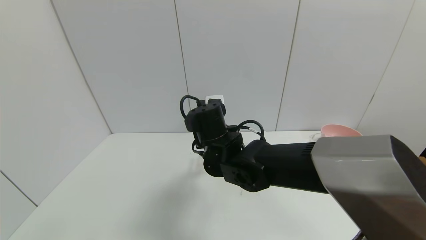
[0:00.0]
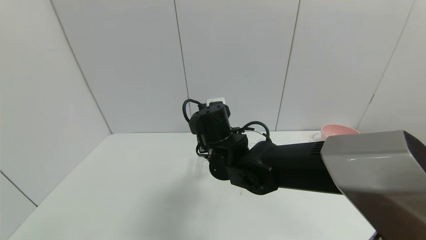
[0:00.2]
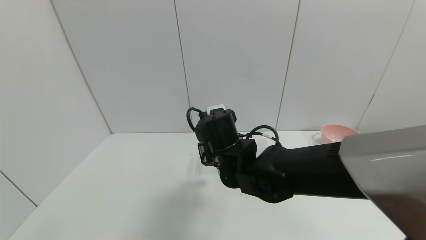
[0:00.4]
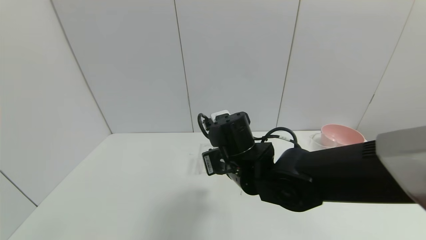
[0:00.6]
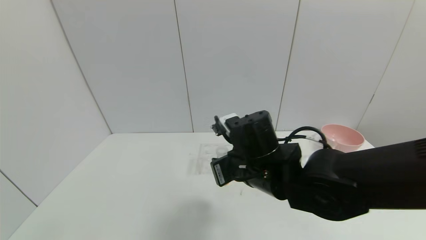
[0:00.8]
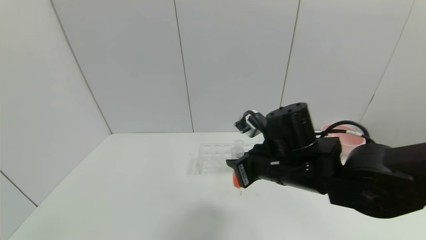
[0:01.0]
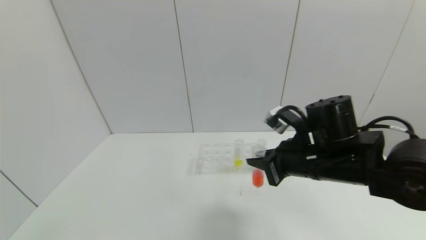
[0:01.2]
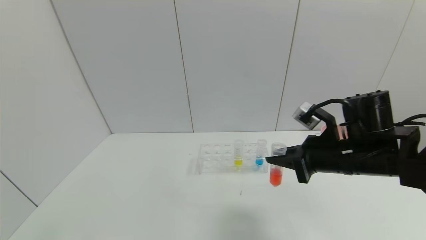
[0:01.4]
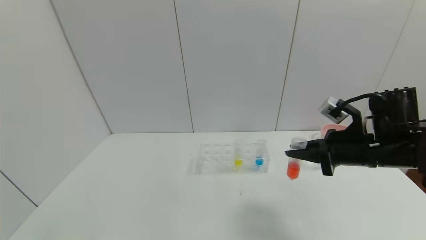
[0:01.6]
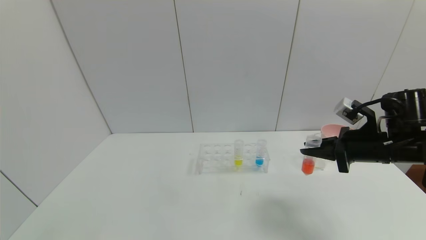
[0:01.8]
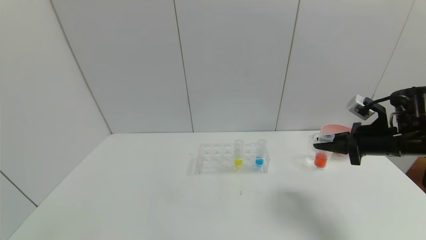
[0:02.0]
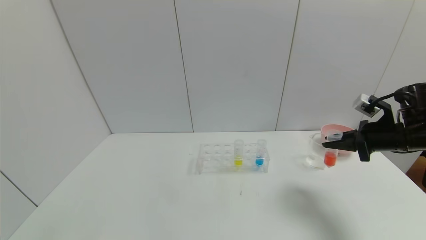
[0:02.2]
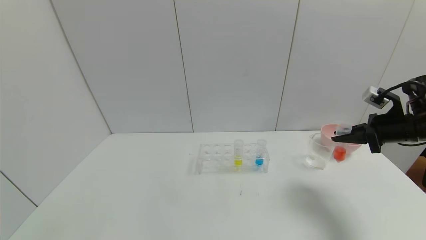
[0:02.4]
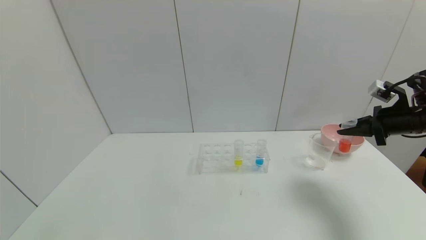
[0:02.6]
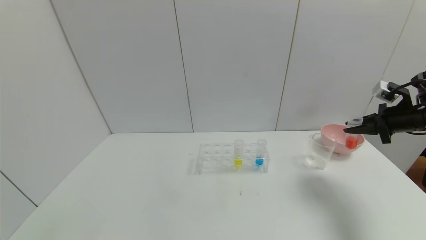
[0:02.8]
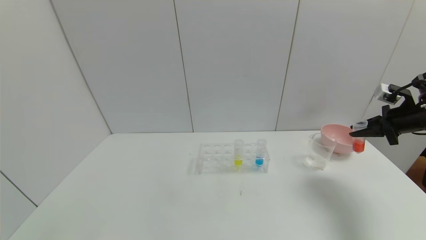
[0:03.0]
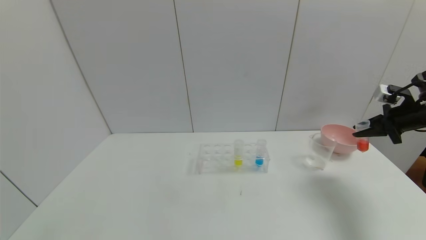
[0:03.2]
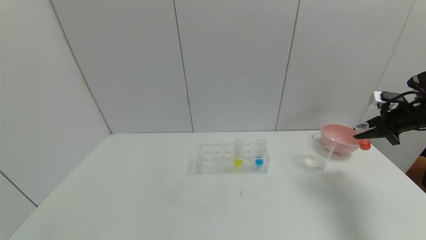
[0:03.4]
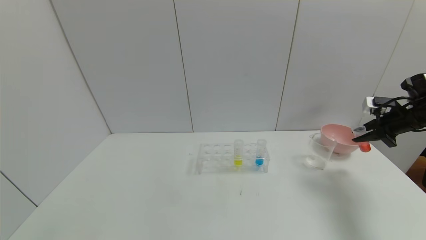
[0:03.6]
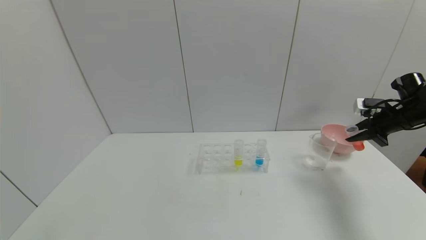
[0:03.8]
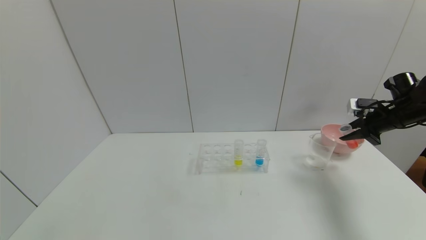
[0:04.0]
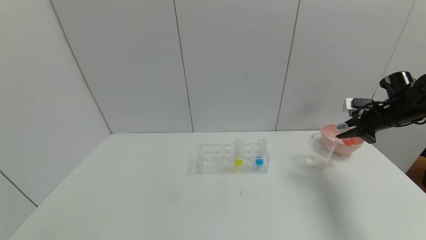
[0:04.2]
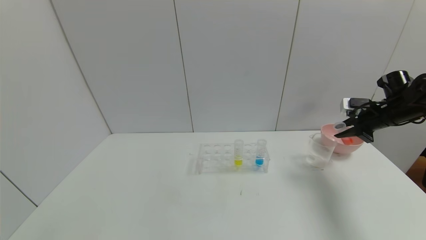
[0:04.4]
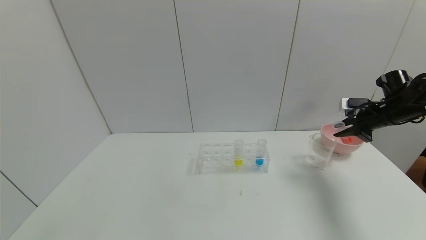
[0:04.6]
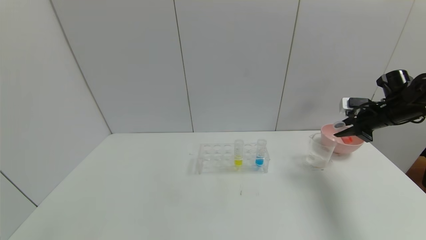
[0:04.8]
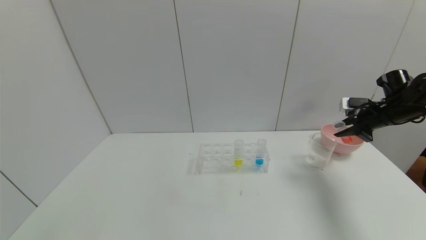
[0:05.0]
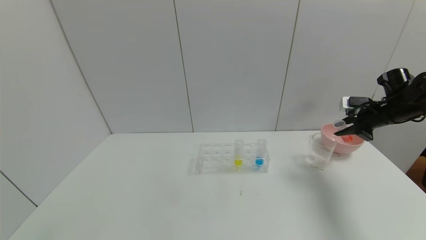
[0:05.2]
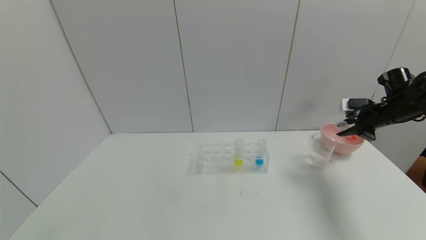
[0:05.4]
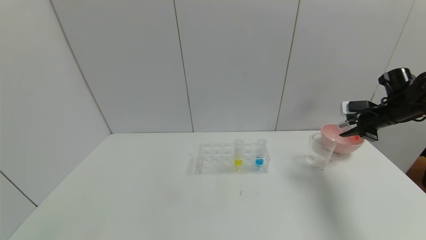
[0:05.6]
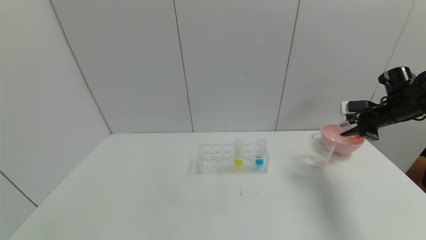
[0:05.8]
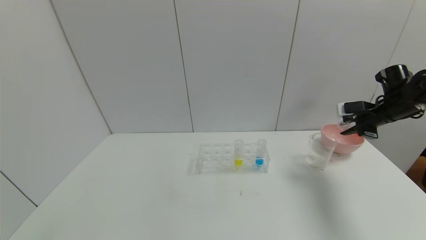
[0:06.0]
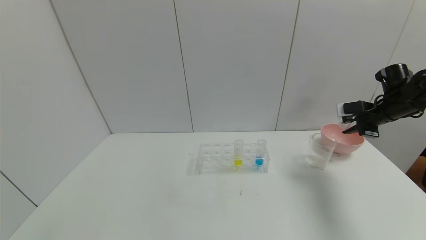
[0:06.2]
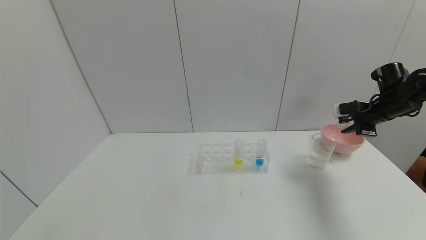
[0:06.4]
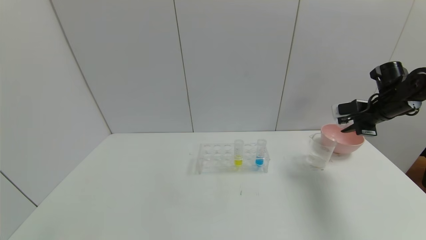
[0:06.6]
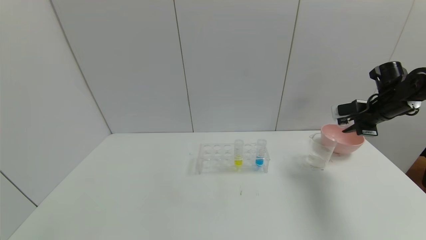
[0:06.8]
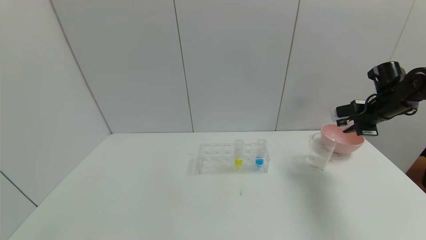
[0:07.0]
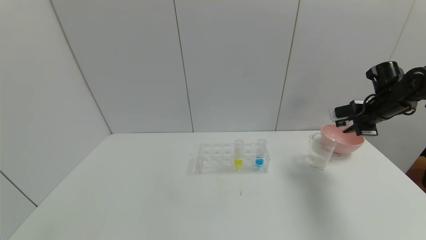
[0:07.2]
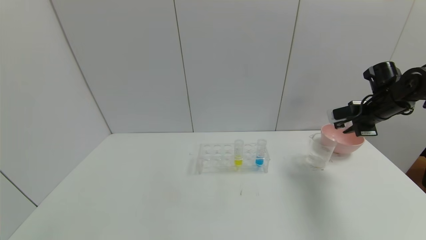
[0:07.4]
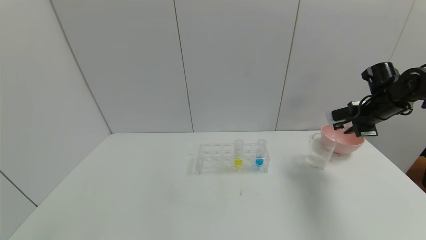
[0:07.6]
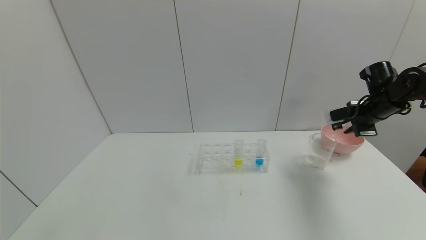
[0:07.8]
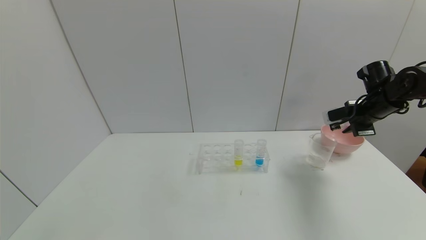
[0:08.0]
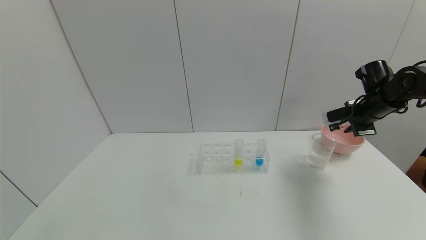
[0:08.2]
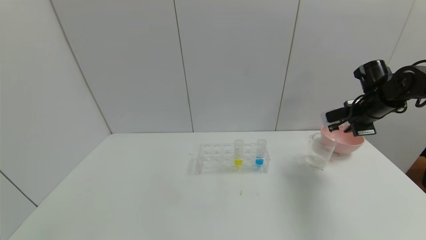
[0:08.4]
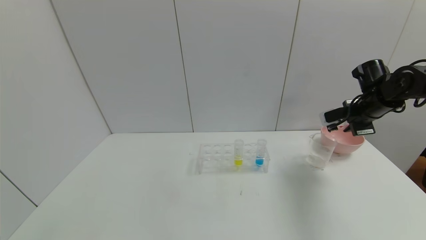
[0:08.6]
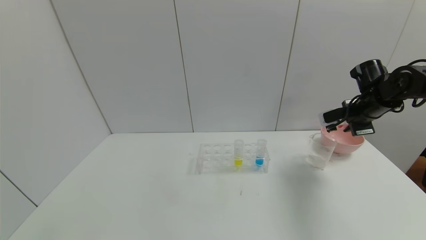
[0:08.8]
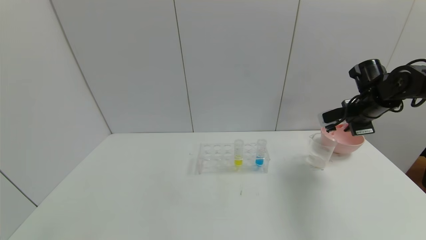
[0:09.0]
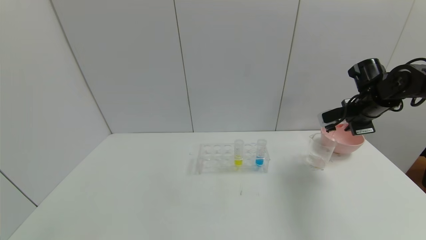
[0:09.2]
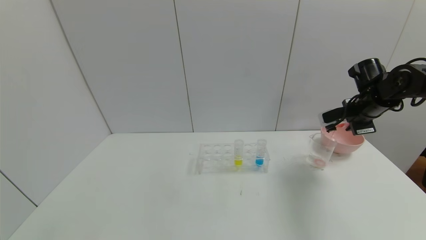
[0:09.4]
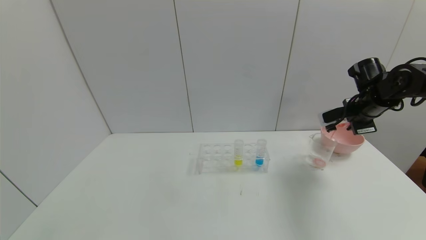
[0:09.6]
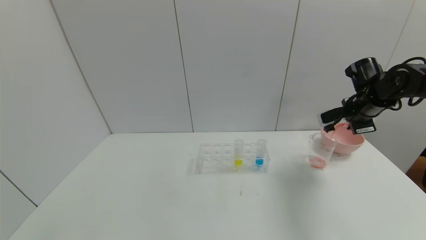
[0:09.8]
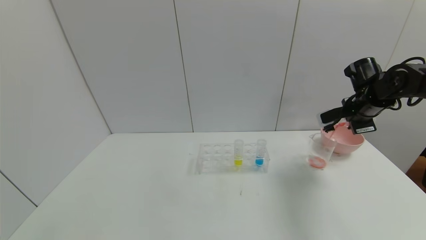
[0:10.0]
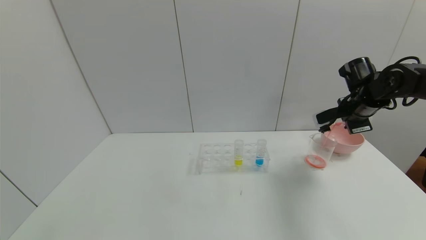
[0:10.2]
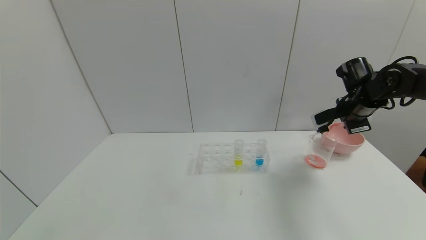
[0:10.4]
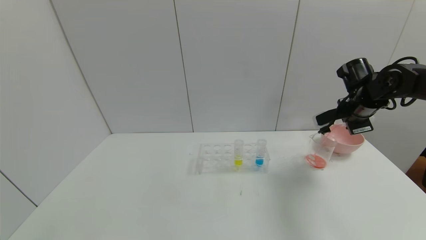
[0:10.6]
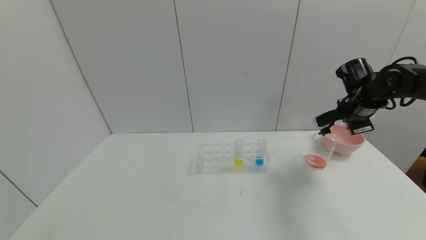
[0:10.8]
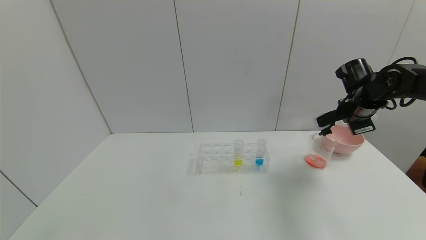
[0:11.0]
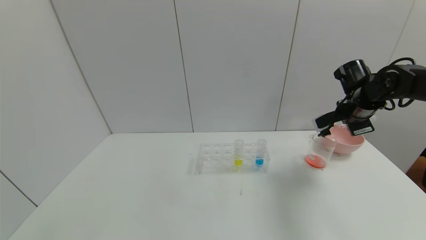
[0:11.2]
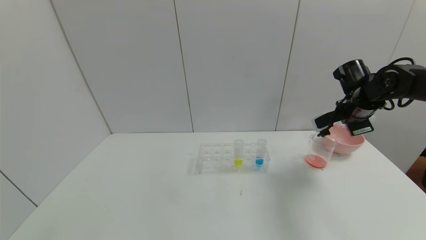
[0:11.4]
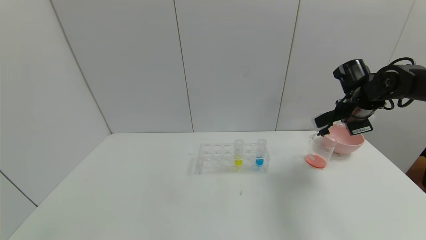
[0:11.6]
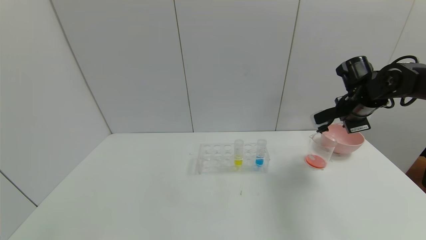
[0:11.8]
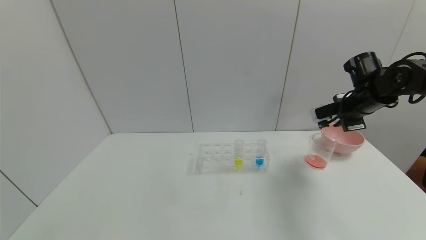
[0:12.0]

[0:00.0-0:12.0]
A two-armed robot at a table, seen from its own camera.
Task of the whole recording: pick up the test tube with yellow pigment and the test tube with red pigment by grippers and pour them into the beaker.
Step, 0:00.0 to 0:11.6: Pour the red reagent into the graduated cylinder with the right gripper.
0:00.0 to 0:01.6: The right gripper shifts some 30 cm to the right.
0:01.6 to 0:03.0: The right gripper shifts about 20 cm to the right and forward.
0:03.0 to 0:04.4: The right gripper heads forward, covering about 5 cm.
0:04.4 to 0:06.0: The grippers move only a little.
0:06.0 to 0:07.6: The grippers move only a little.
0:07.6 to 0:10.4: The grippers move only a little.
0:10.4 to 0:12.0: The grippers move only a little.

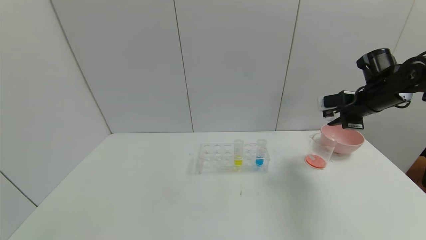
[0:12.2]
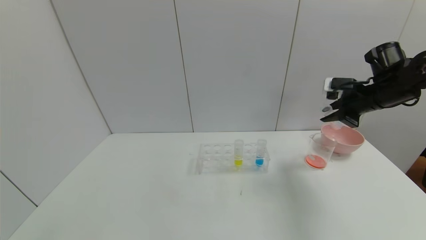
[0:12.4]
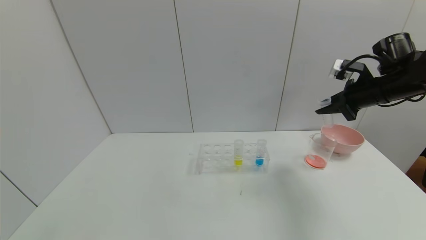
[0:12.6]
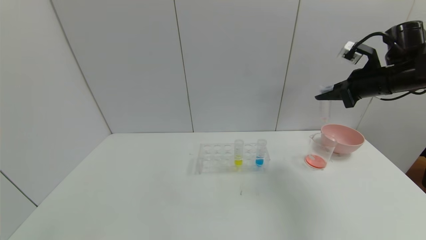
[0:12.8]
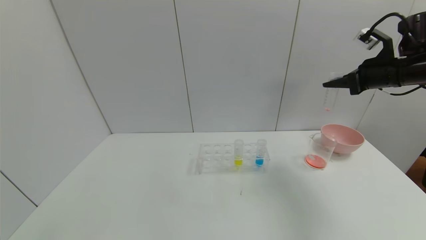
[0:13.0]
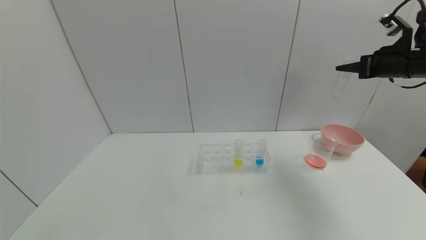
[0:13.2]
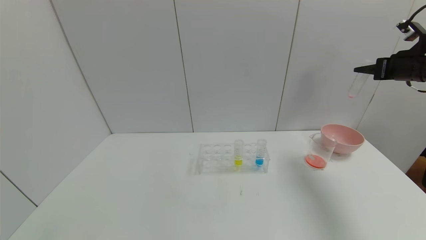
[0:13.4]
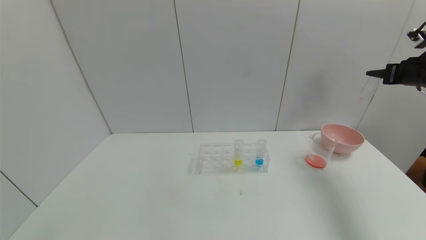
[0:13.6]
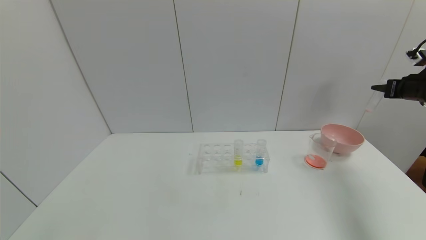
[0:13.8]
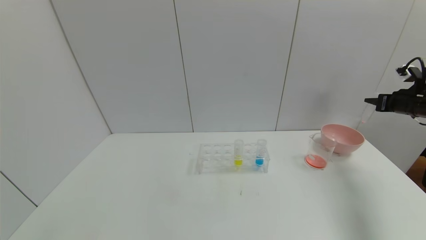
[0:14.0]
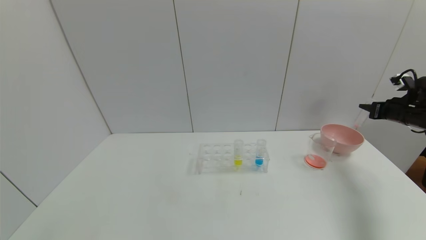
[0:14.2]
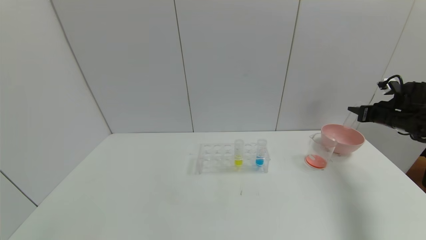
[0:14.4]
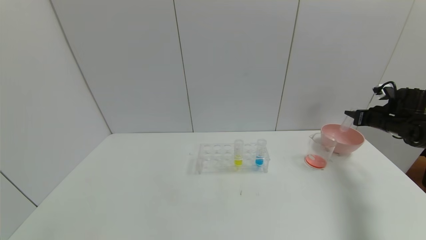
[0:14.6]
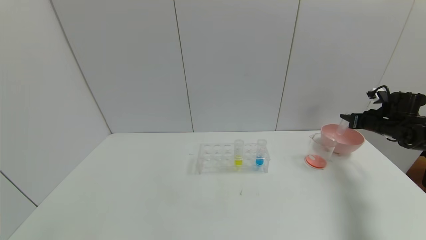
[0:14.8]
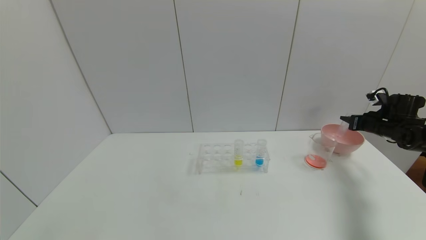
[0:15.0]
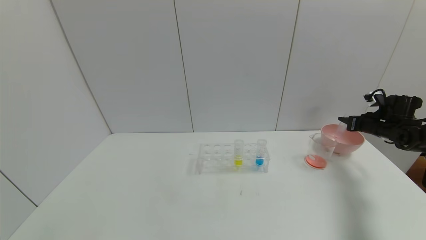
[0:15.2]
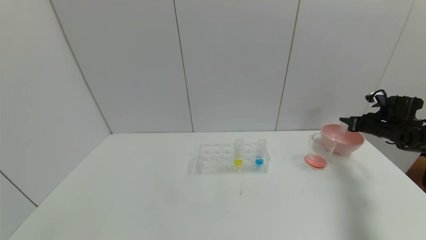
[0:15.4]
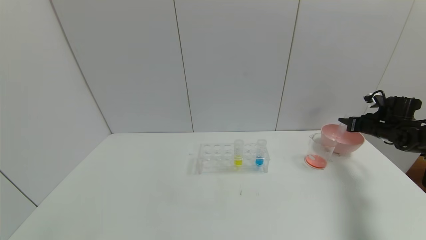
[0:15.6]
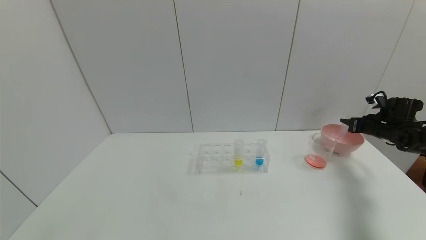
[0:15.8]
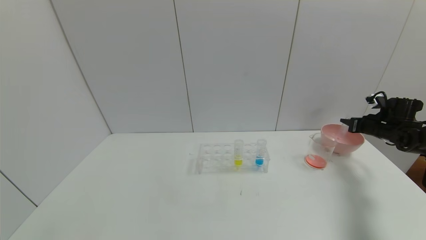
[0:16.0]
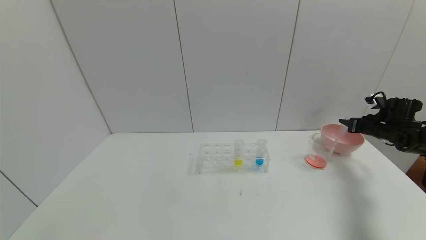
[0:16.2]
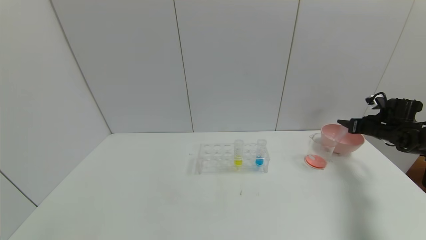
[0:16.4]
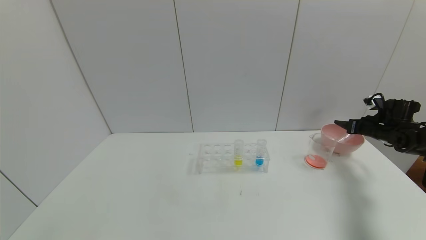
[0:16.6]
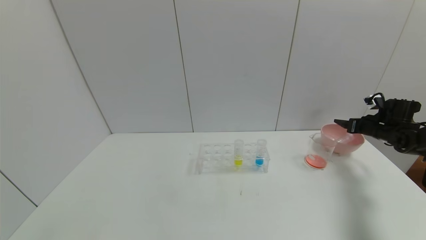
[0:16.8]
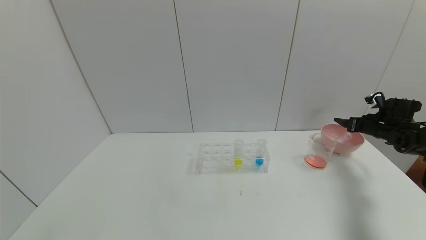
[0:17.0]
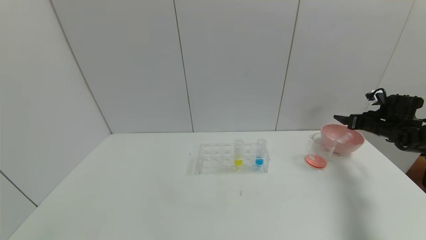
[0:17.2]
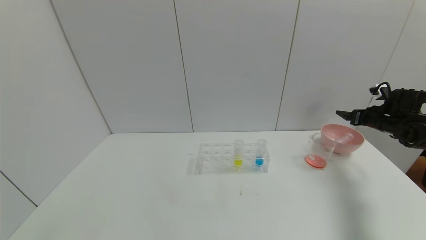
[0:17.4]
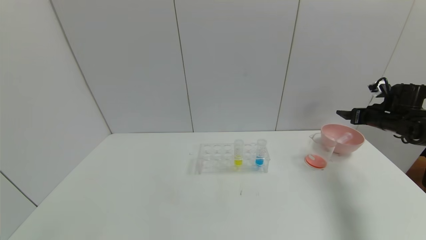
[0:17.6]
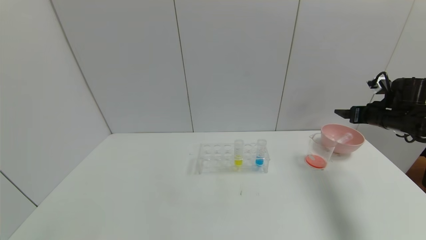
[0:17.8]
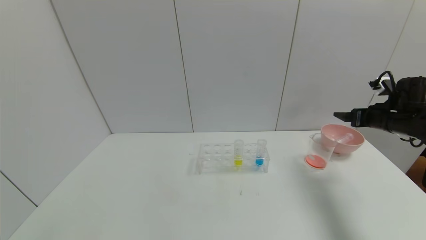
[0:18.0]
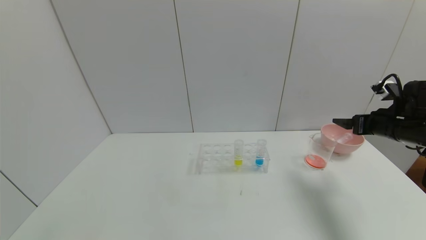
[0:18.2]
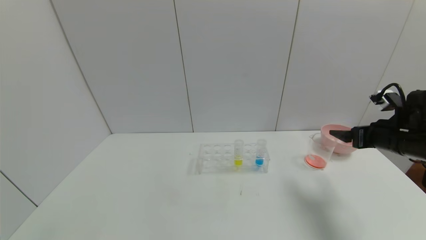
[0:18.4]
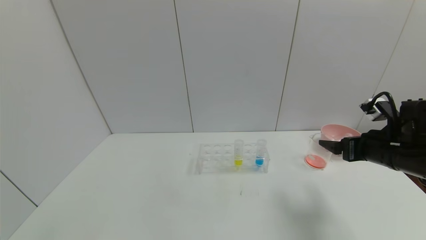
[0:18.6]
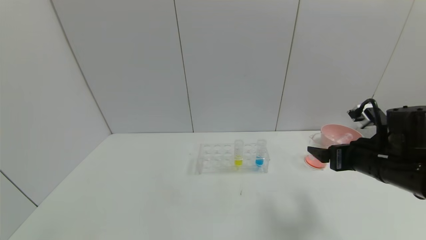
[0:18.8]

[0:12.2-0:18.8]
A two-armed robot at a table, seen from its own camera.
Task of the whole recording: pick up the test tube with yellow pigment and the test tube with red pigment by grippers and pour them into the beaker.
Step, 0:12.2 to 0:16.6: Place the test tube into the bowl with the right gripper.
0:12.2 to 0:13.8: The right gripper shifts approximately 15 cm to the right.
0:13.8 to 0:15.4: The right gripper moves downward, about 15 cm.
0:15.4 to 0:17.2: The right gripper opens up.
0:17.2 to 0:18.8: The right gripper moves to the left and backward, some 30 cm.
